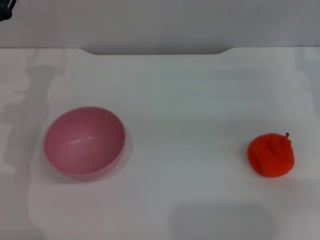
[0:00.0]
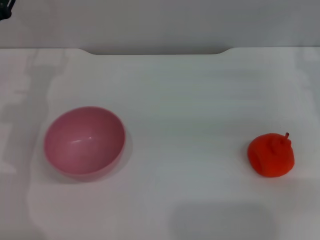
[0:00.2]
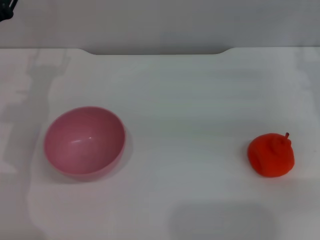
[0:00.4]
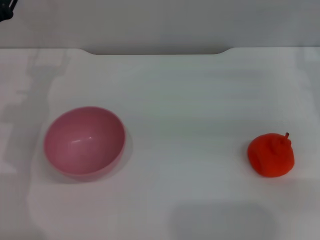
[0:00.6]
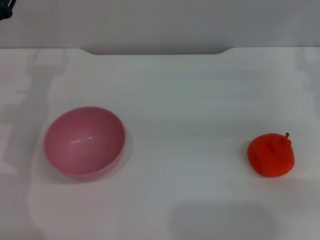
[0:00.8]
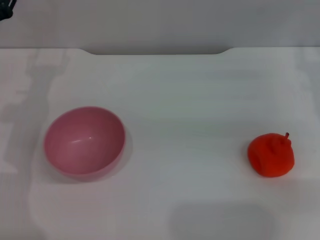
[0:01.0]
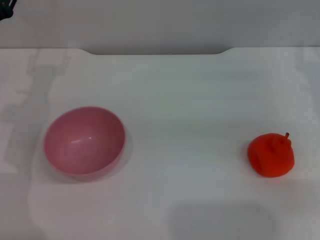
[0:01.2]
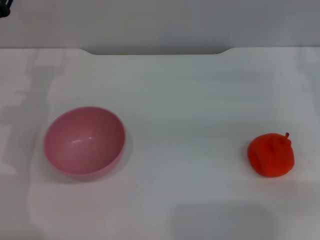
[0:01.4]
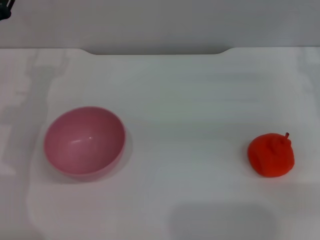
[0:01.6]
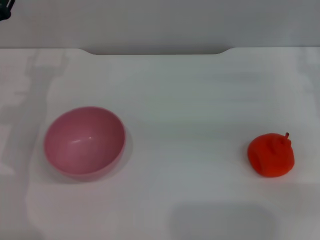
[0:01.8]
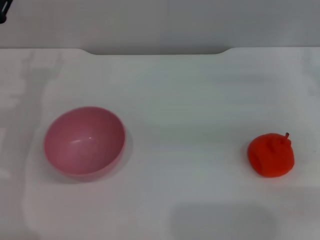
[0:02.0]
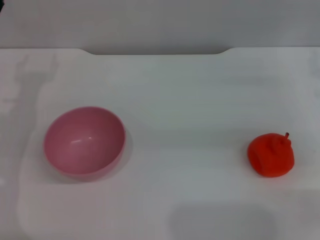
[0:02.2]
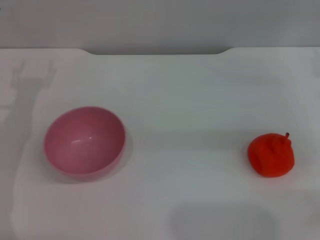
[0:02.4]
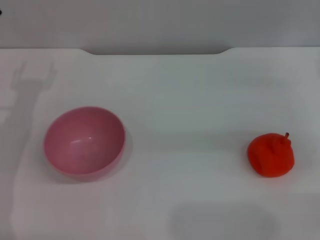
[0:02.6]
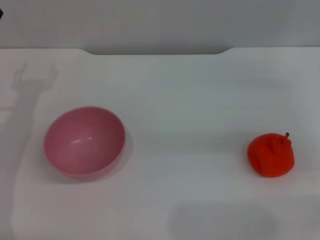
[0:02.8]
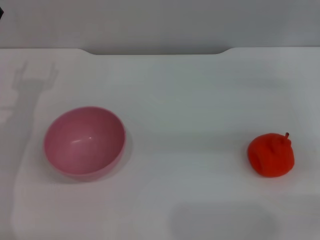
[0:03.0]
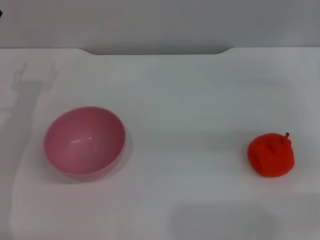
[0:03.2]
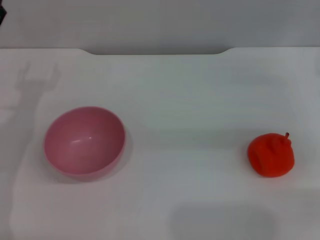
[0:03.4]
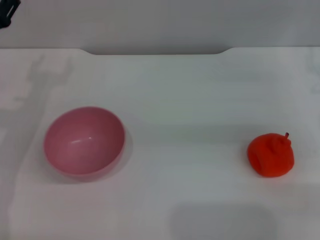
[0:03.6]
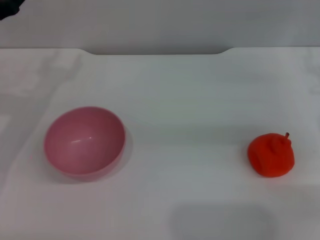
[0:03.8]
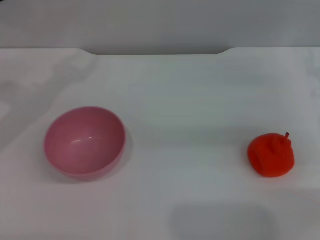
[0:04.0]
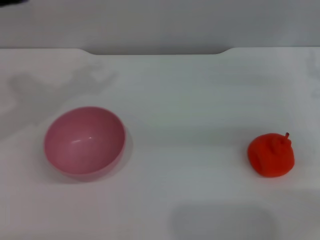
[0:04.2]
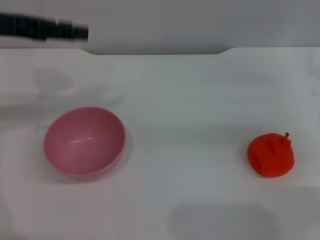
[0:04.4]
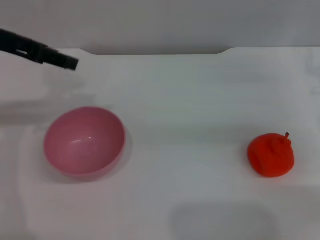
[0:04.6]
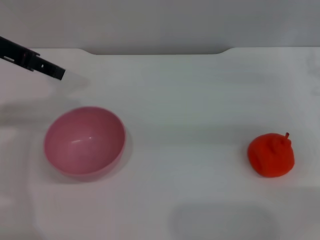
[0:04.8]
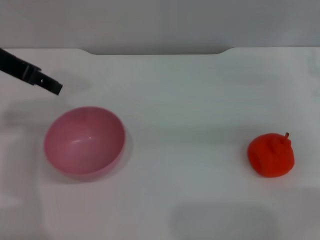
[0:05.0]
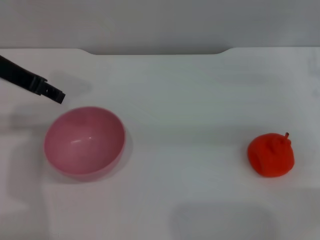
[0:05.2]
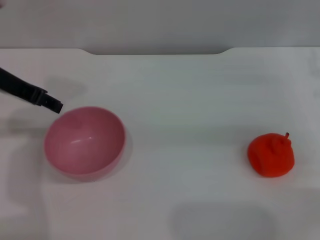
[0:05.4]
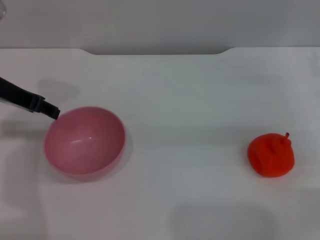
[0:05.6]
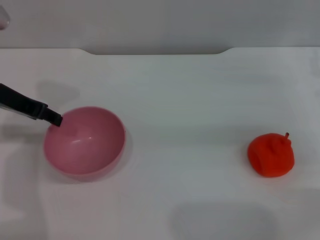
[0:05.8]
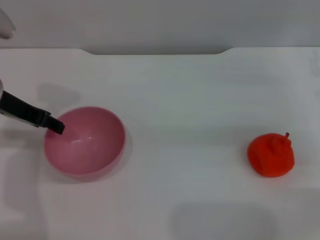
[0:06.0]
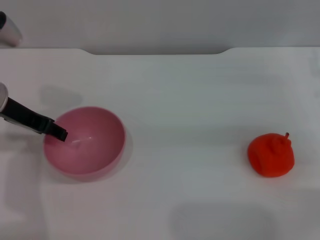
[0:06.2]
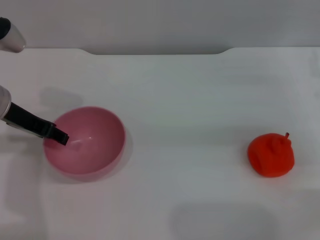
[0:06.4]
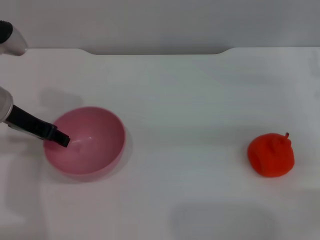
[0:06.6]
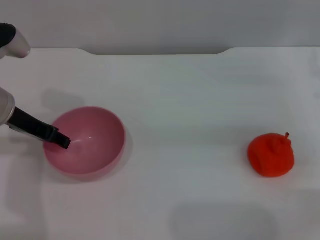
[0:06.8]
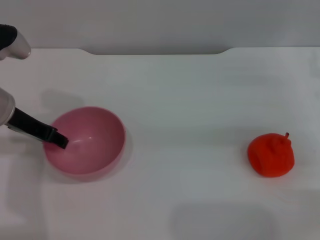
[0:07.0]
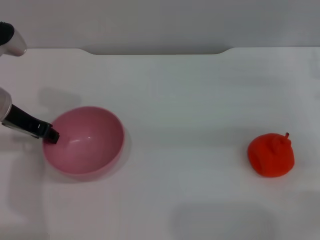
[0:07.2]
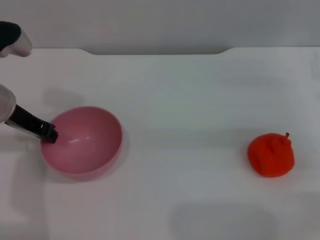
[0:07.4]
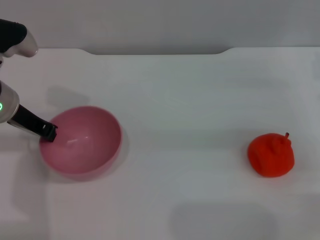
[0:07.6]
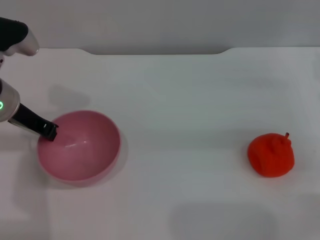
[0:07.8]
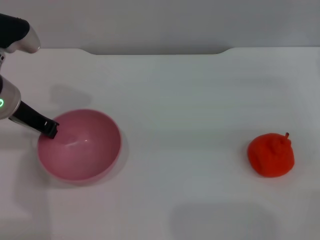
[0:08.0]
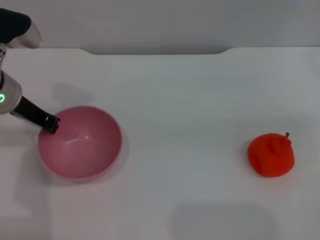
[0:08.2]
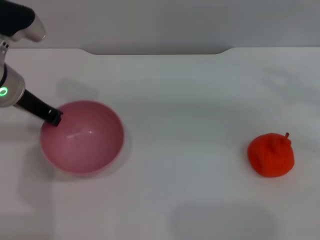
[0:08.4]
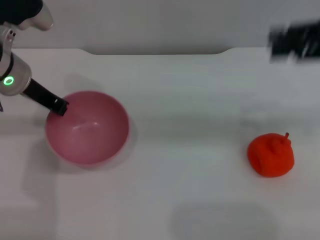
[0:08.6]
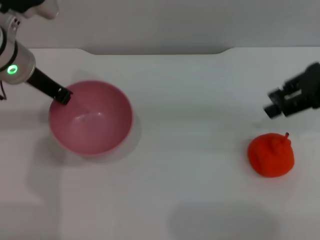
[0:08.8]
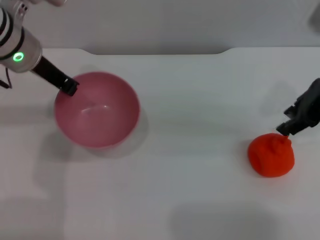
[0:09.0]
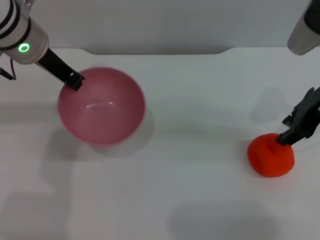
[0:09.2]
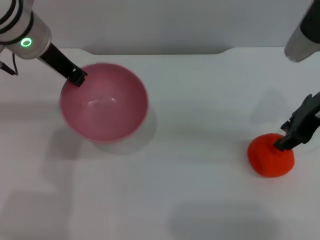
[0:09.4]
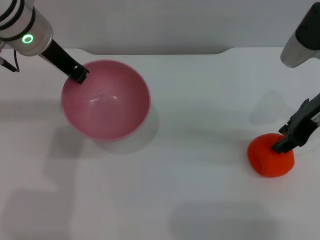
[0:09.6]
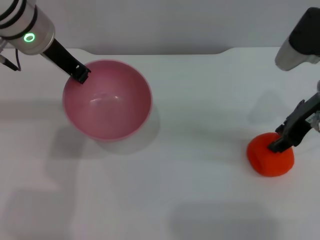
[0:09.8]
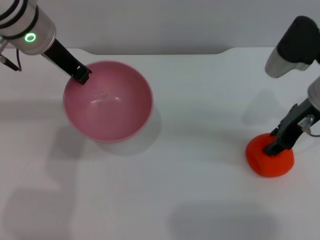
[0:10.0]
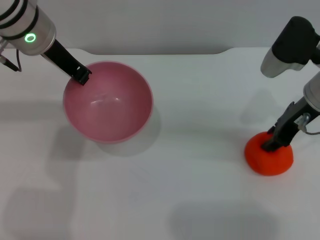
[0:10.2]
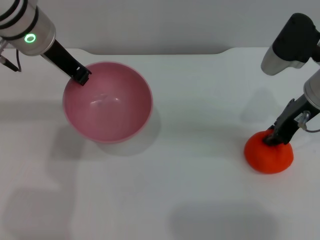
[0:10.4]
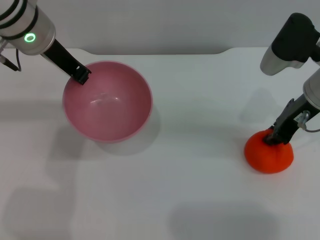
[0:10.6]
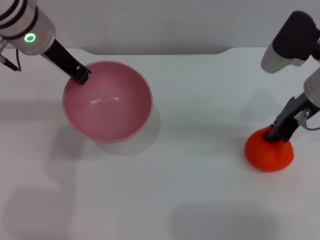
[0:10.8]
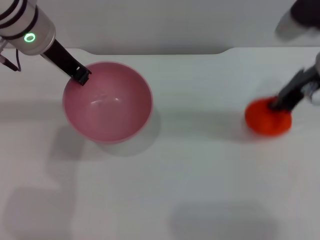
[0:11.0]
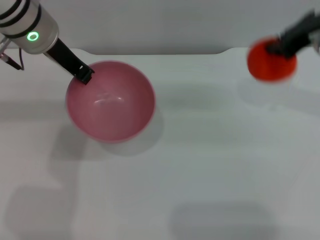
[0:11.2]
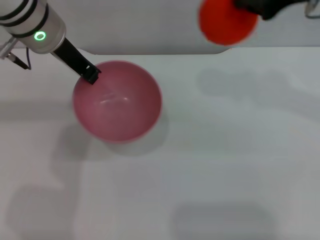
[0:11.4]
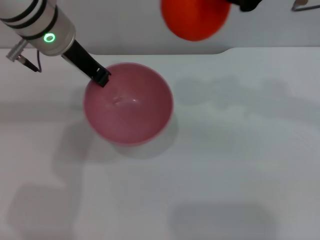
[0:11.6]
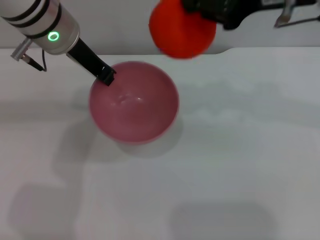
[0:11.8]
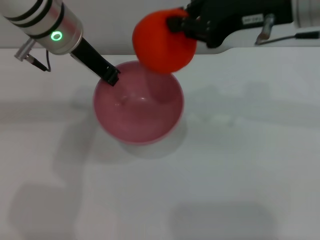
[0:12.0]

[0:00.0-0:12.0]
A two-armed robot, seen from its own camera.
Task of the whole recording: put the orange into the pink bowl and pour it out repeatedly.
Step, 0.0 to 8.6 s: Pick up the bowl with the left gripper.
Step, 8.8 to 10.8 s: Pick up the orange with the right gripper.
0.0 to 1.6 s: Both grippers stay put.
3.0 to 4.4 s: The left gripper heads upward, covering about 15 cm.
4.4 to 6.0 s: The left gripper is displaced downward by about 5 cm.
6.0 to 7.6 s: The left gripper closes.
7.6 to 9.0 s: The right gripper travels upward and to the left by approximately 15 cm; the left gripper moves upward, about 5 cm, and closes its fingers.
9.0 to 10.4 s: The right gripper is displaced downward by some 5 cm.
10.4 to 12.0 s: The right gripper shifts roughly 15 cm upward and to the left, and closes.

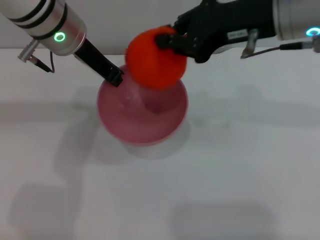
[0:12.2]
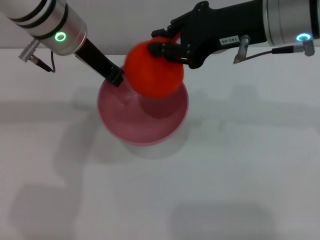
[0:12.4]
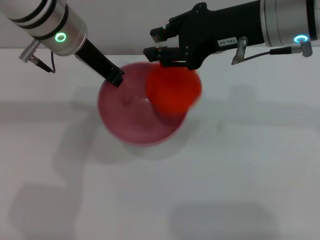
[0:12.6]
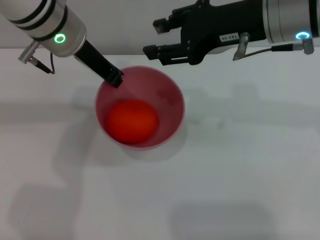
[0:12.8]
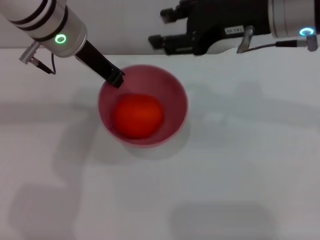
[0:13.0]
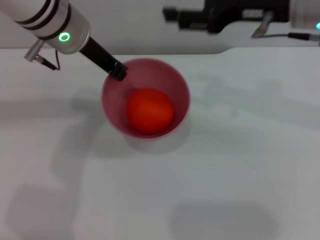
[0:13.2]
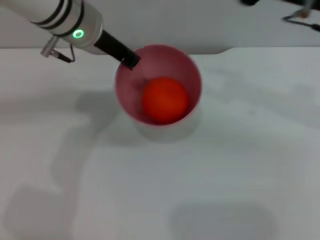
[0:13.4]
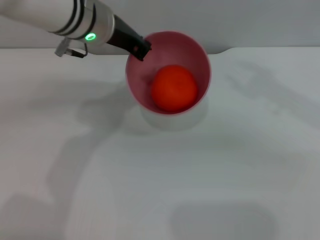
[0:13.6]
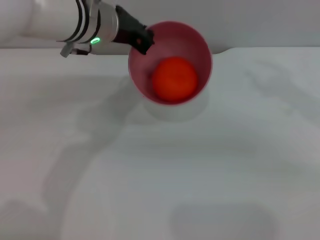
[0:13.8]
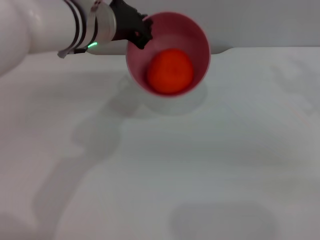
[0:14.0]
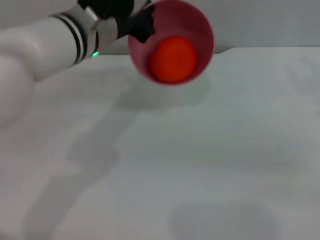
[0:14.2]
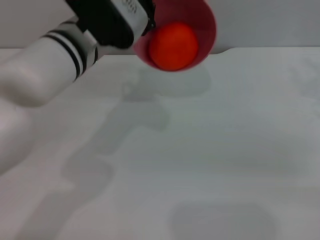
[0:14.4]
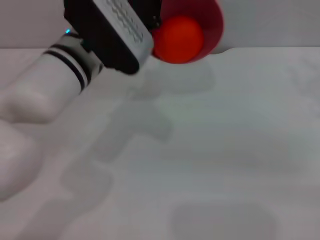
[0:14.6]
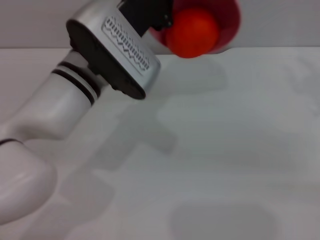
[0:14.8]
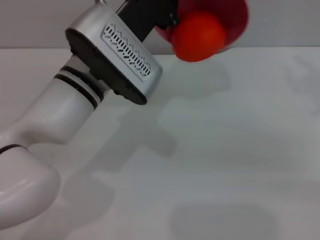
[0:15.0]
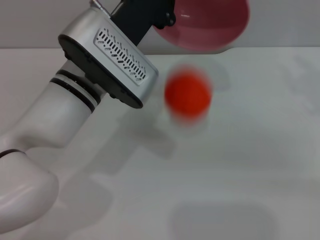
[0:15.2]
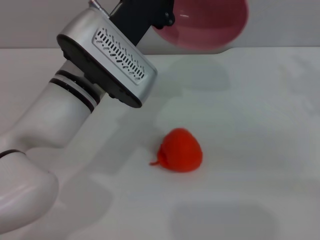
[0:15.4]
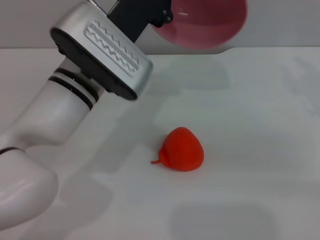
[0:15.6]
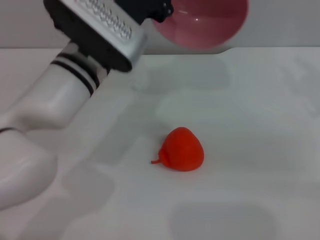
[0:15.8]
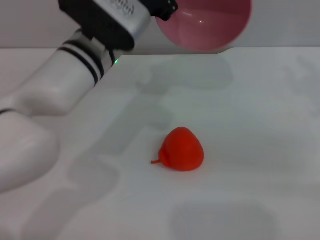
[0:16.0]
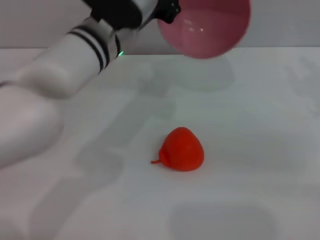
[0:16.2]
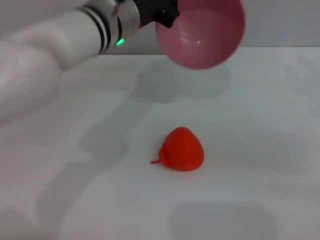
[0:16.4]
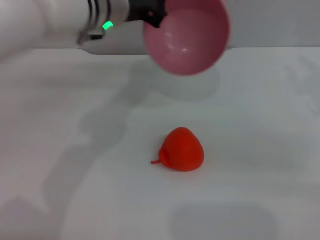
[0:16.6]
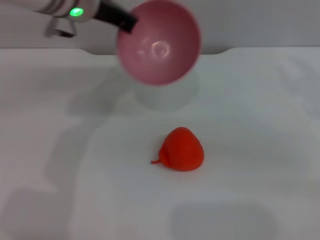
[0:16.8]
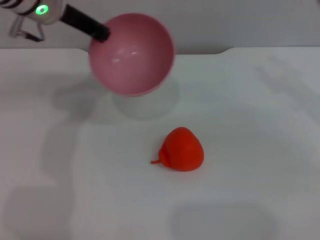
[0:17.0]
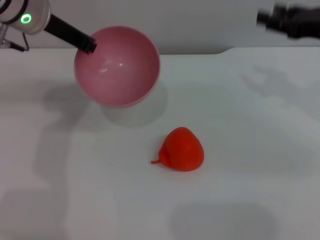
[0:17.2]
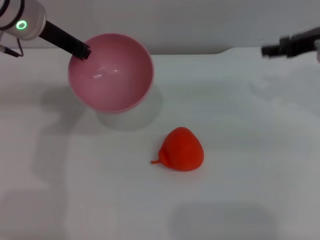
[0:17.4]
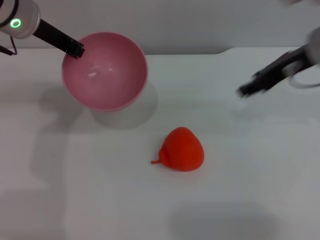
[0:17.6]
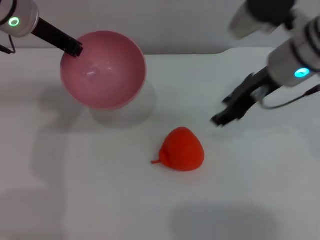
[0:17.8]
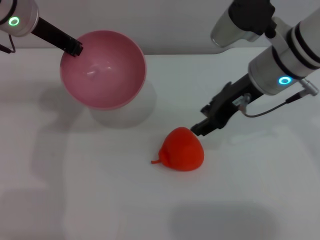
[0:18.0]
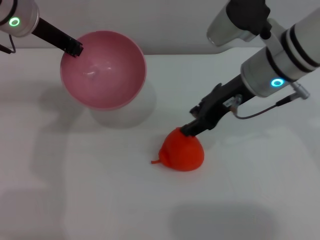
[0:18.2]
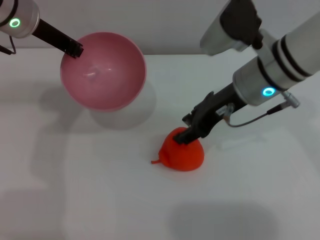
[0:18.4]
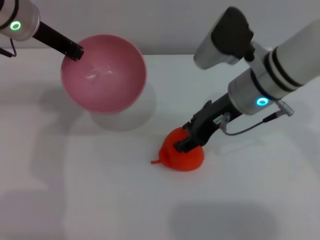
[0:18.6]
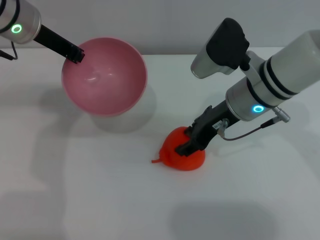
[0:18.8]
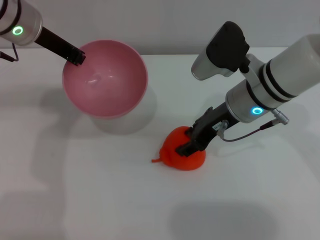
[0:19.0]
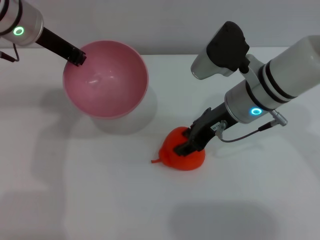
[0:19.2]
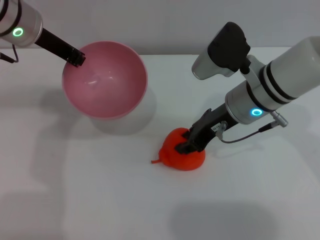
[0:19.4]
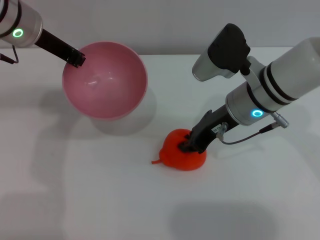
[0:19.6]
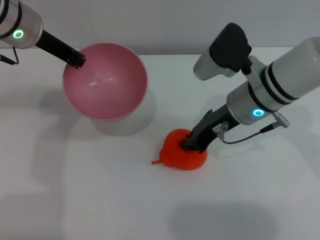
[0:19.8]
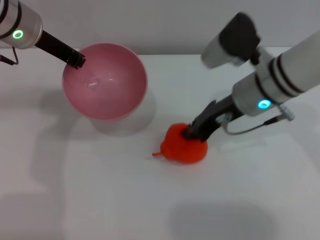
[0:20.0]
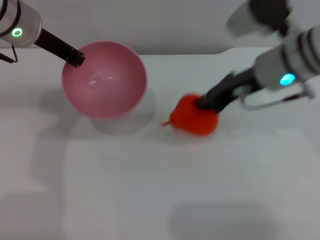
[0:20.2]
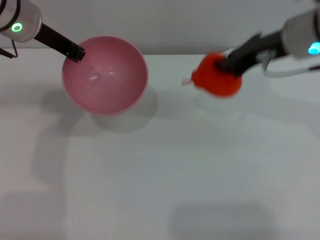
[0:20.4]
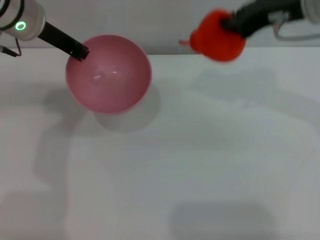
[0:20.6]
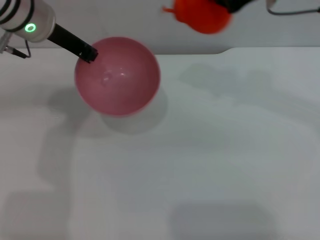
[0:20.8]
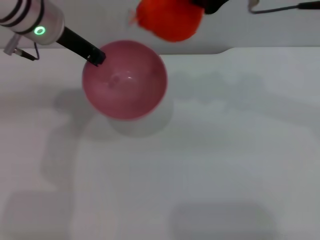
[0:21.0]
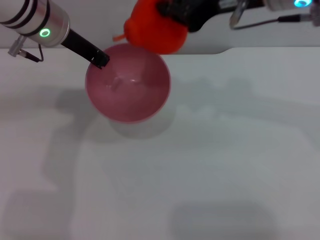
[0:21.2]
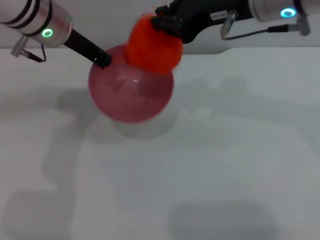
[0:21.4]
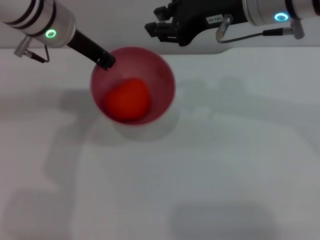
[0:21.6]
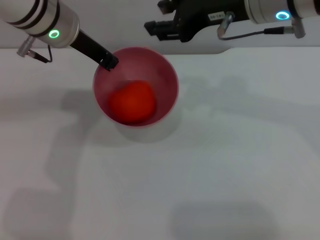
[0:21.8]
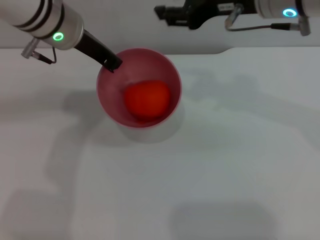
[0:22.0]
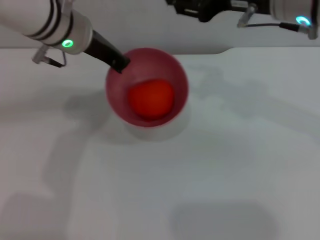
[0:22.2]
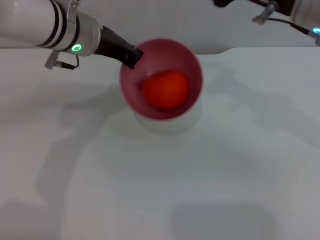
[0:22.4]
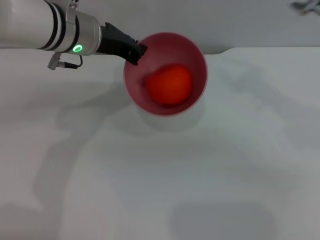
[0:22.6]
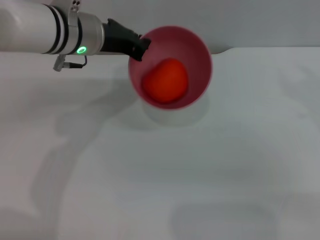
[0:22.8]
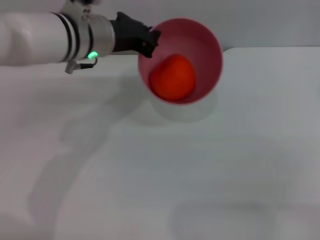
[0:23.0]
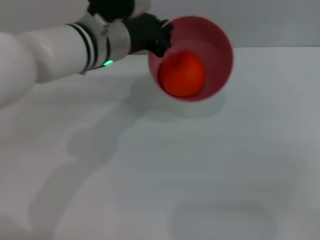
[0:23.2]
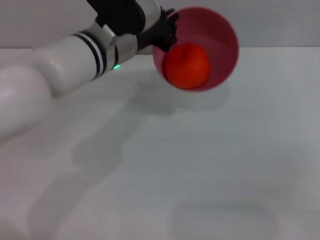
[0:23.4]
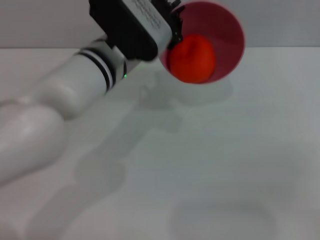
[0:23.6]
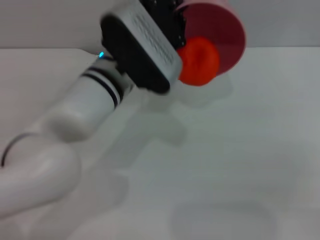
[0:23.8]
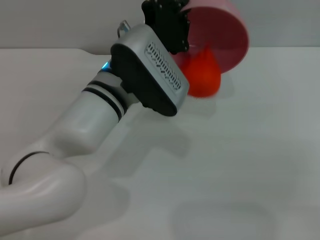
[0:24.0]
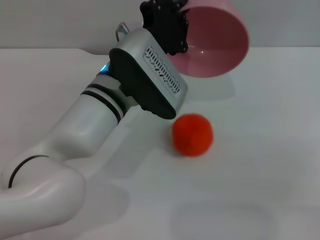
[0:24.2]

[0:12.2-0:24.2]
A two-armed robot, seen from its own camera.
Task of the whole recording: put the orange into the pink bowl and pour it out repeatedly.
Step, 13.0 to 15.8 s: Pour the orange out of the bowl.
Step, 16.0 to 20.2 s: Pick up the orange with the right gripper.
Step, 20.4 to 21.6 s: Place the orange into the bowl.
12.2 to 13.8 s: The right gripper is displaced to the right and downward by about 15 cm, and opens.
13.8 to 15.2 s: The left gripper is displaced backward by some 10 cm.
15.2 to 16.6 s: The left gripper moves forward, roughly 5 cm.
16.6 to 18.2 s: Both grippers travel together to the left, approximately 15 cm.
18.2 to 19.8 s: The right gripper heads downward, covering roughly 5 cm, and closes up.
19.8 to 21.2 s: The right gripper is displaced upward by approximately 15 cm.
21.2 to 22.6 s: The right gripper goes approximately 10 cm to the right and downward, and opens up.
22.6 to 24.2 s: The right gripper goes roughly 10 cm to the right. The left gripper travels backward, to the right and downward by roughly 10 cm.
